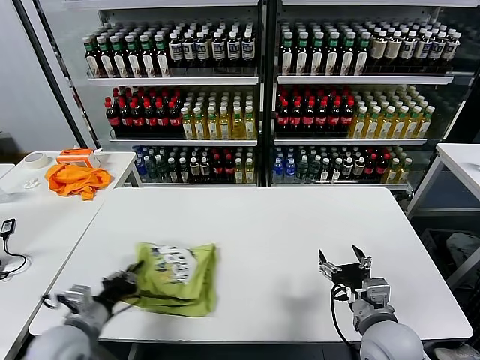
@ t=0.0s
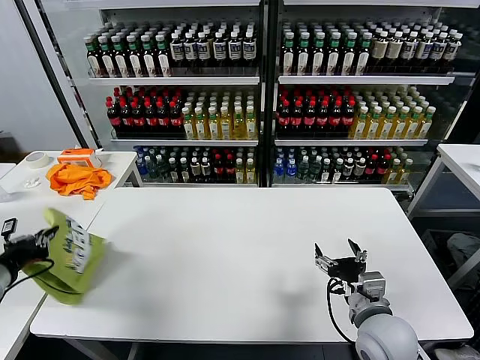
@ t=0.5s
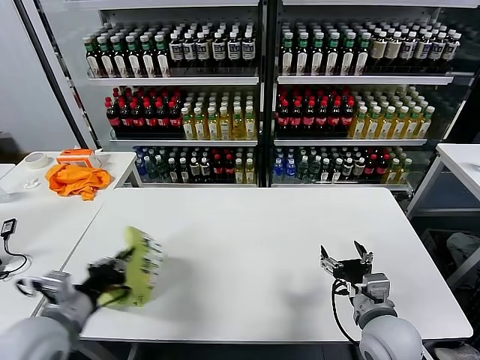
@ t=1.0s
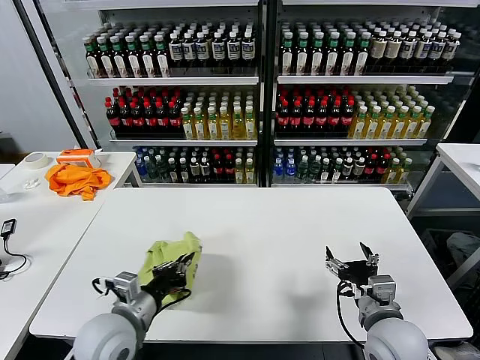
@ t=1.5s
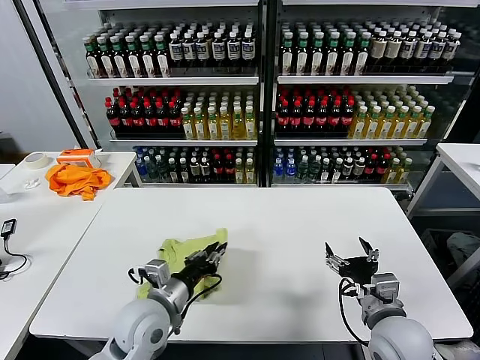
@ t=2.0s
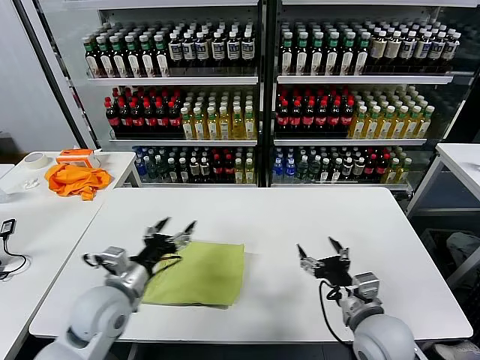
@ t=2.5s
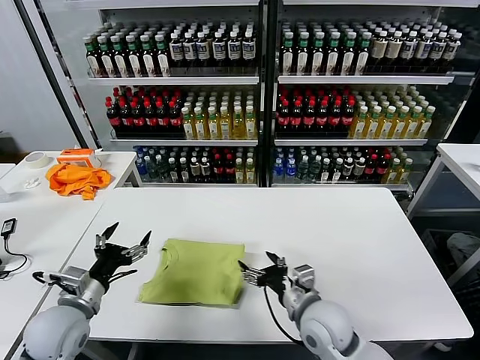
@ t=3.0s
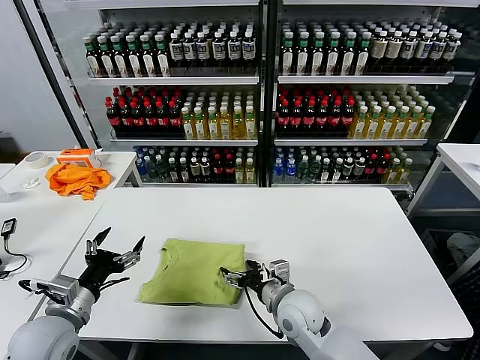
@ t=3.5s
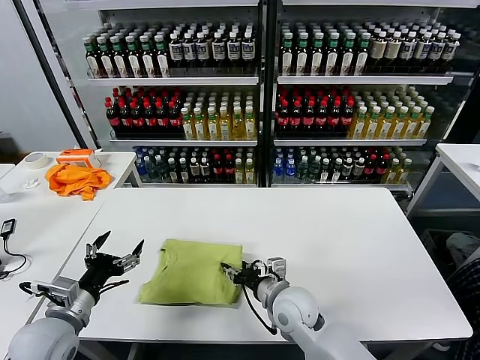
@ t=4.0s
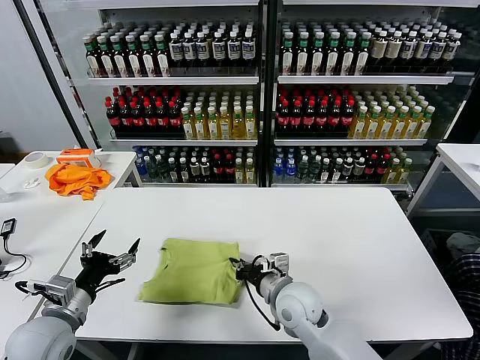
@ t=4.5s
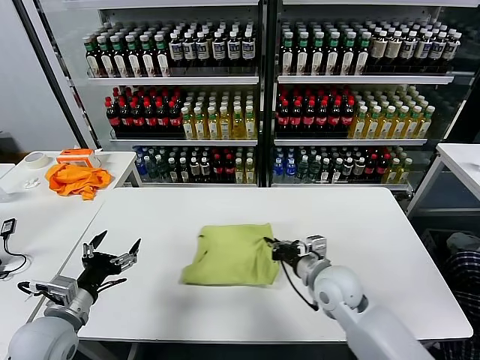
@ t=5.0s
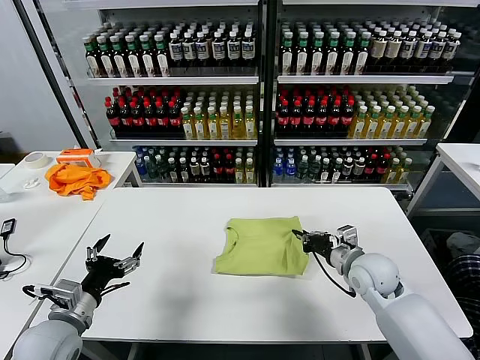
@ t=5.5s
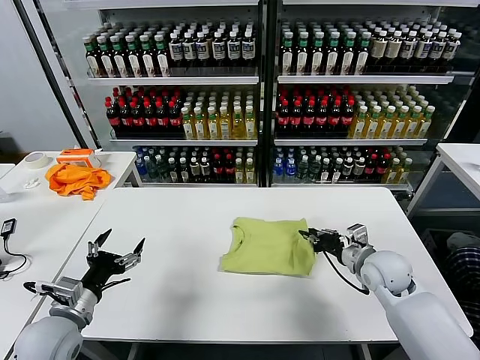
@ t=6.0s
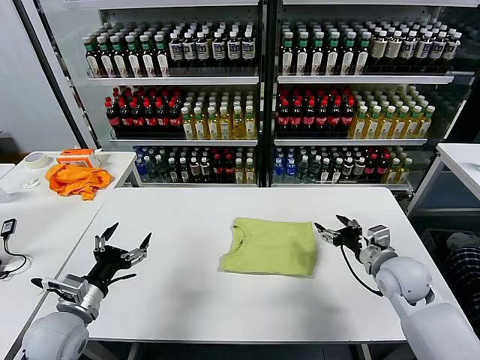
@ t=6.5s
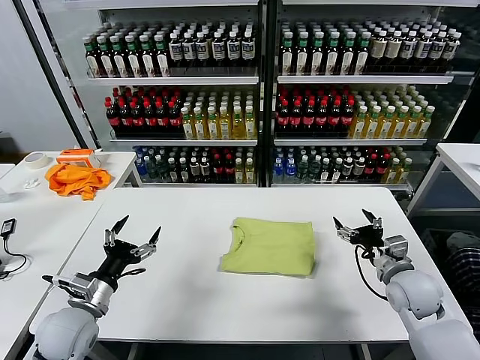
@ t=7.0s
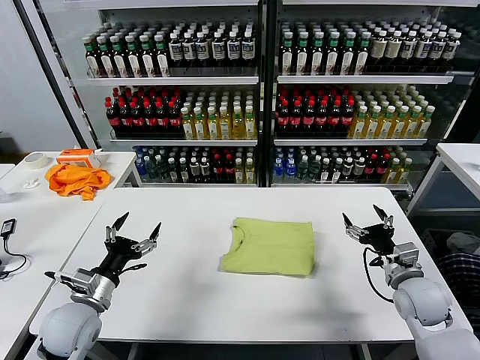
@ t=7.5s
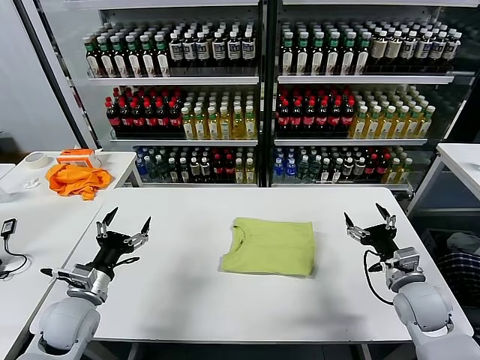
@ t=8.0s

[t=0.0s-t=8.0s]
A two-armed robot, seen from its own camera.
Task of the whole recording: fold and organize the clothes.
Step, t=0.0s to t=2.0s: Flip the folded clothes over with left gripper.
Step, t=2.5s to t=6.0s: Drag the clothes to the center of the table.
t=0.0s to t=2.0s: The left gripper shifts about 15 cm to the right.
t=2.0s to t=4.0s: The right gripper is displaced to the left, forward and downward by about 20 cm, and closes up; the left gripper moves to the left, about 15 cm, and opens its fingers.
t=4.0s to t=6.0s: The right gripper shifts about 20 cm to the right, and closes.
t=6.0s to t=8.0s: The left gripper moves about 5 cm. Meanwhile the right gripper travels backward and to the right by approximately 10 cm, and opens its fingers.
